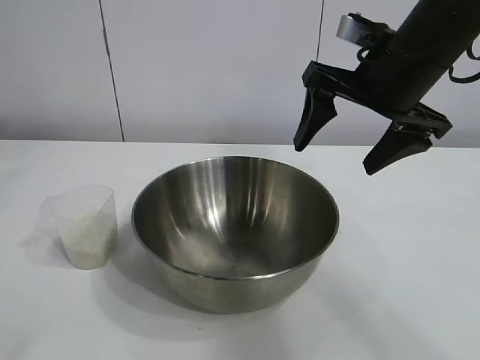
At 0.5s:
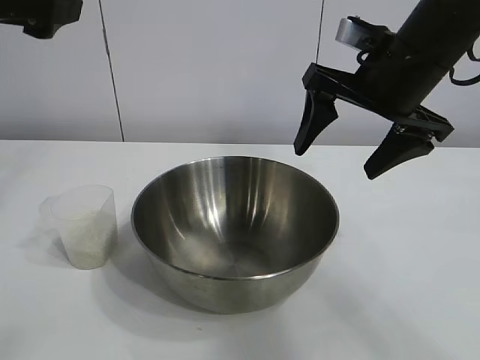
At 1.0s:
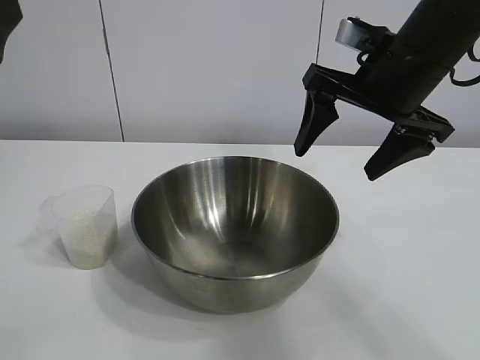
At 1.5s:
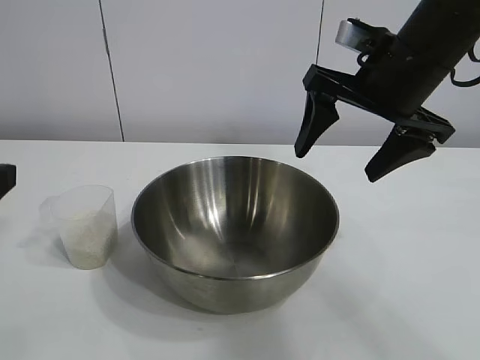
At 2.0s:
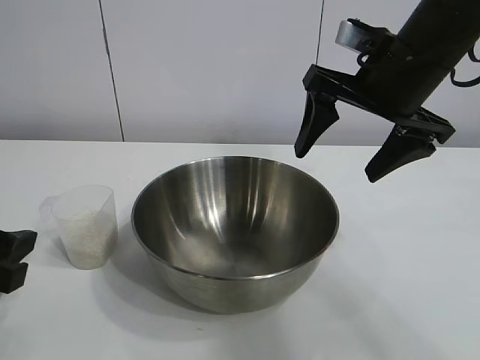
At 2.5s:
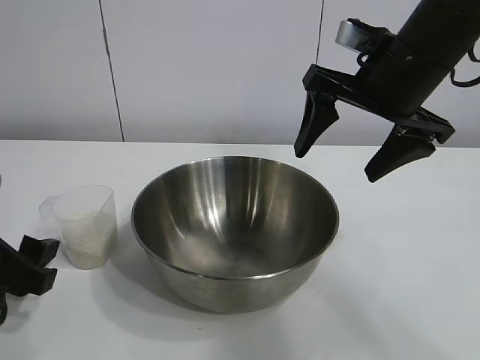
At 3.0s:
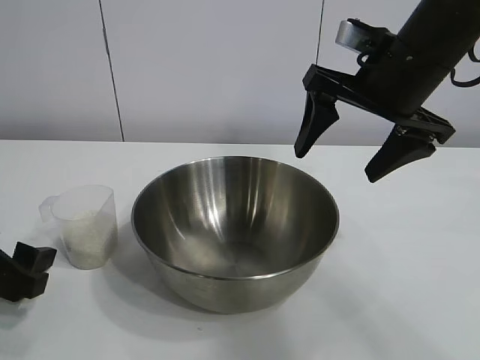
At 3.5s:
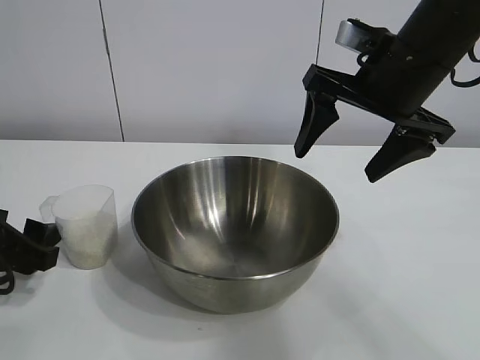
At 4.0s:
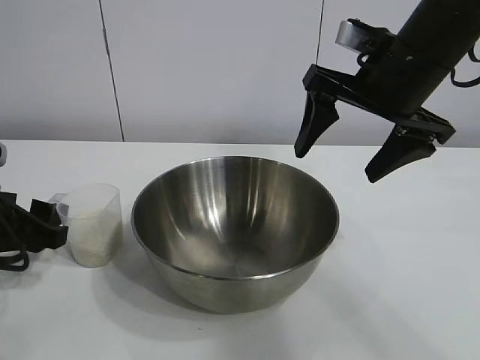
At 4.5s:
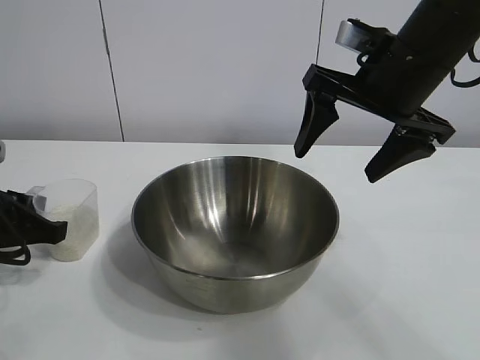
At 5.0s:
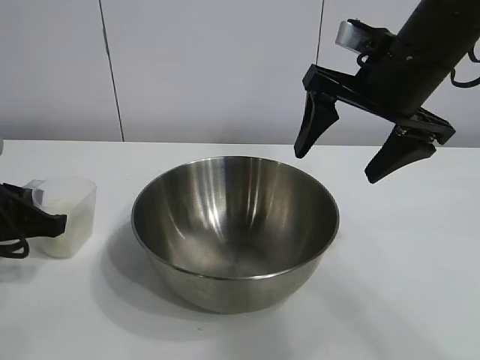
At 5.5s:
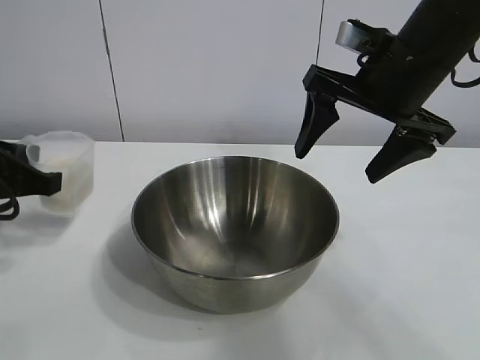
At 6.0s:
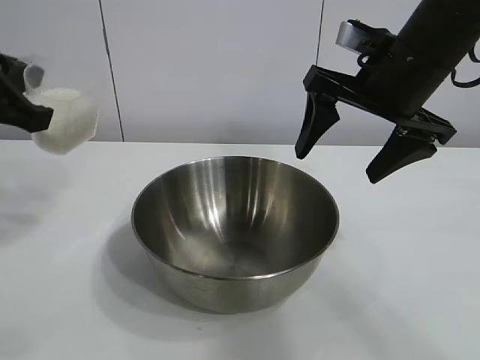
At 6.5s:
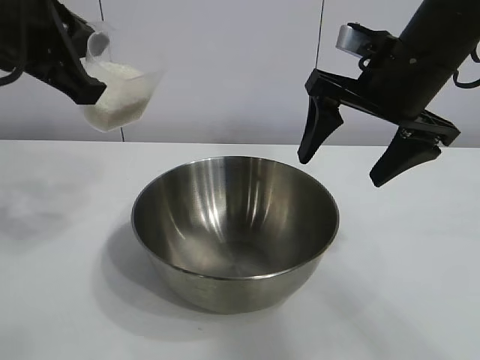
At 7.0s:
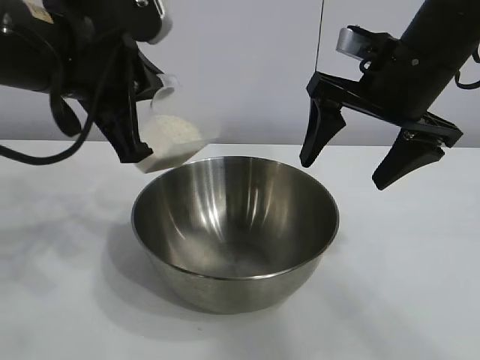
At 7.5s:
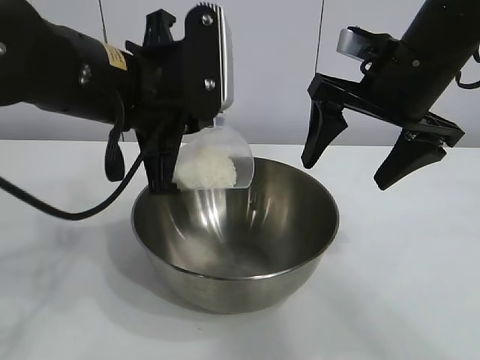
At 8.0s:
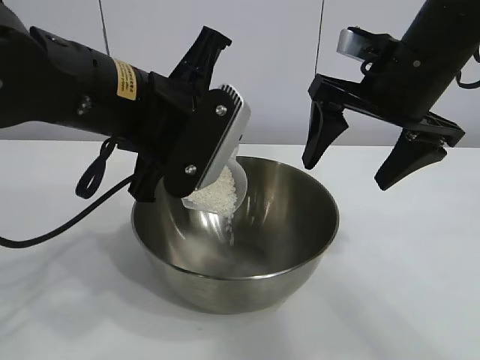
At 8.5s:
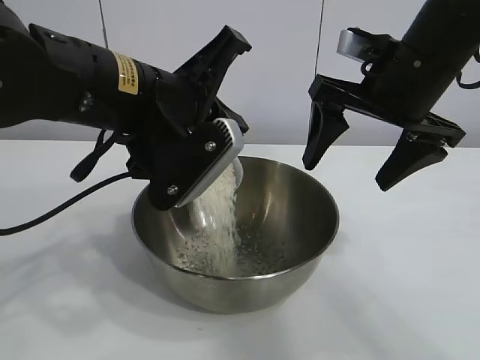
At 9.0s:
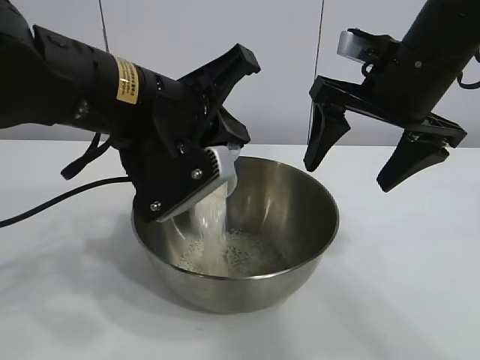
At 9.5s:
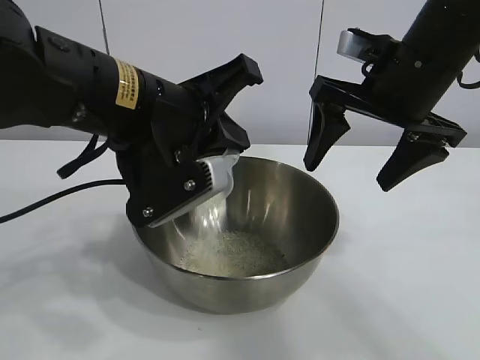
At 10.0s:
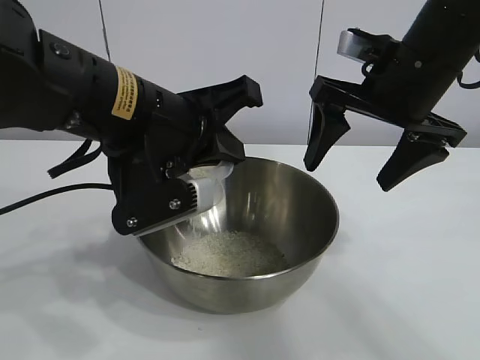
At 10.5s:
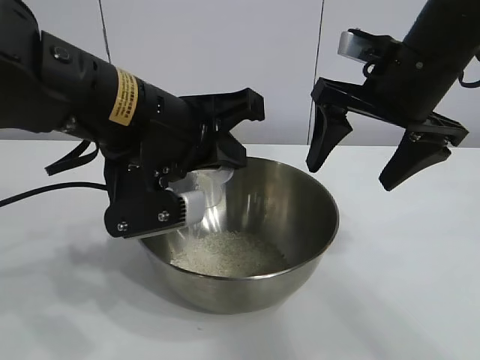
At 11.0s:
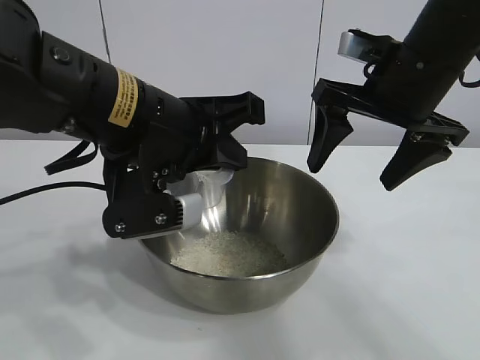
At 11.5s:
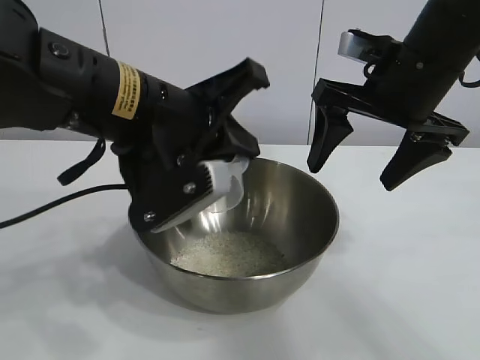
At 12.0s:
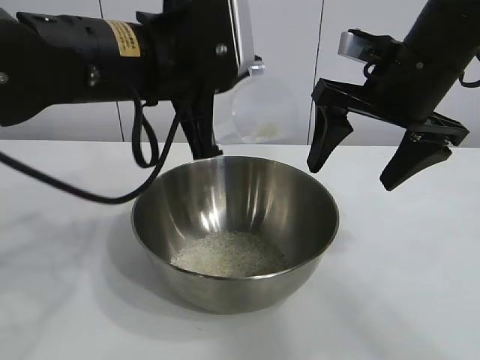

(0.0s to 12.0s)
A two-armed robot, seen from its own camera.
Task of the whole recording: the right gripper grasp the rice container and place it in the center of the table, the left gripper grasp the rice scoop and pour the rice into the rice container.
Step, 0.0s - 4.5s: Grasp the cup with rice in it with left gripper.
Step, 5.0s - 11.0s: Pour the rice from the cup into the bowl with the left gripper.

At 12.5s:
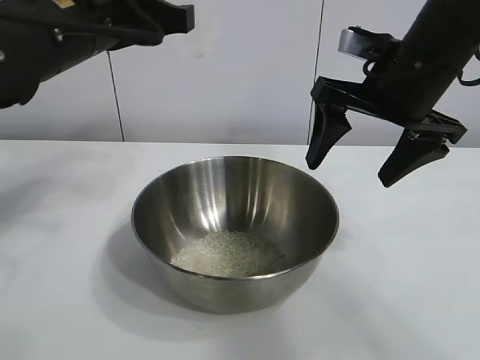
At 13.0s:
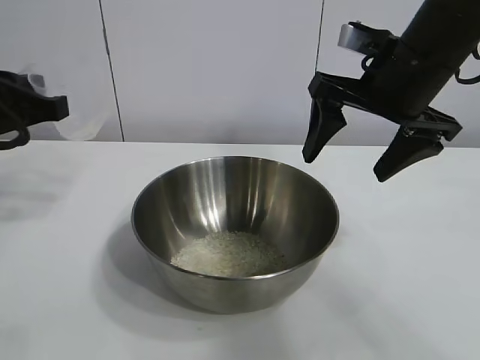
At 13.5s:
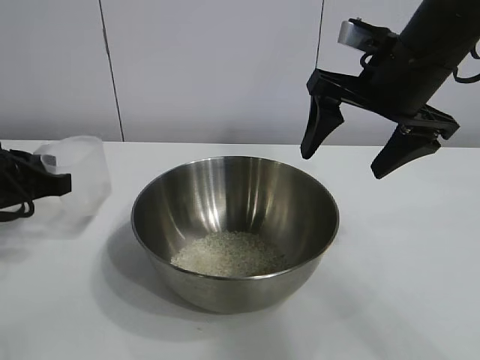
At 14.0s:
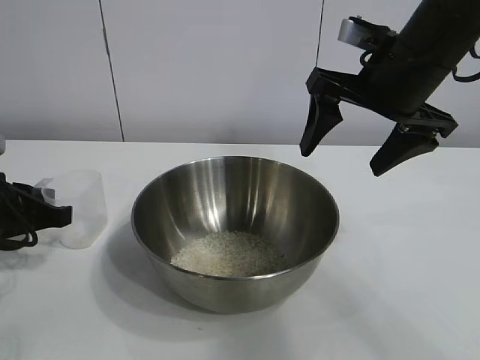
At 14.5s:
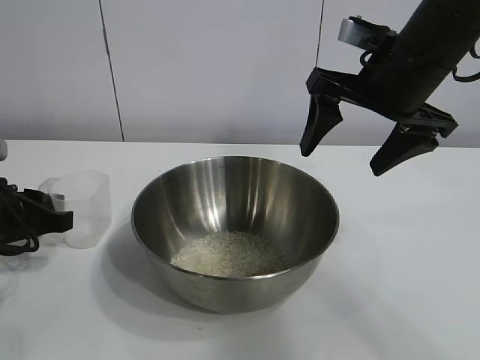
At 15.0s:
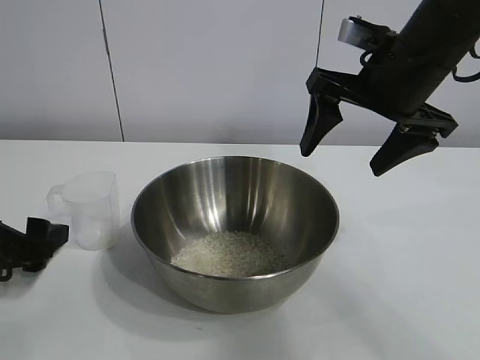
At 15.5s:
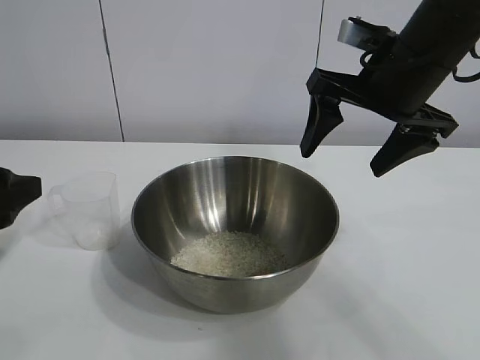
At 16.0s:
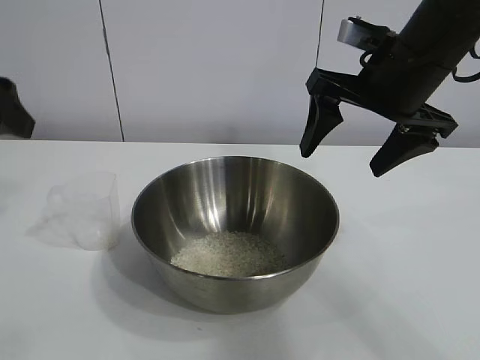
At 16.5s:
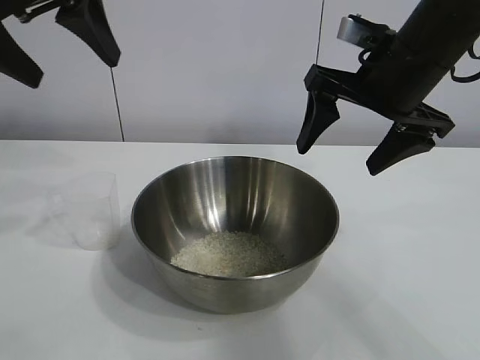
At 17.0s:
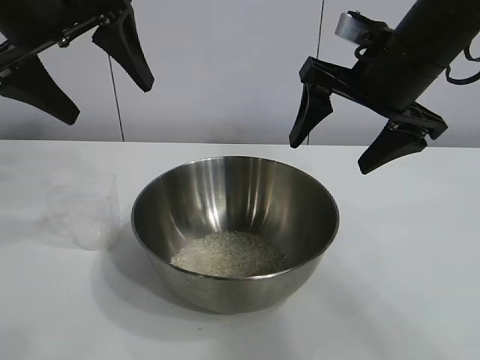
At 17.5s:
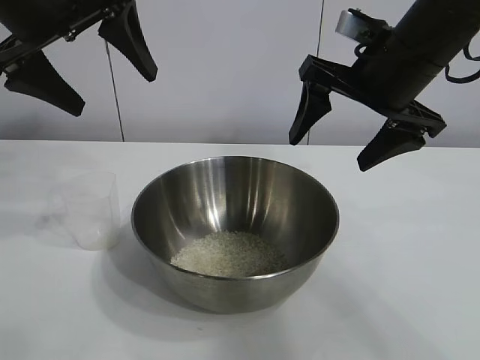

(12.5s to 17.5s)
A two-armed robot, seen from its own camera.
Task of the whole recording: the right gripper grasp the rice container and place it in the center of the table, the left gripper grasp the rice scoop and pour the rice into the rice container.
Step, 12.5s - 14.5s: Place the cup on the table with the left gripper.

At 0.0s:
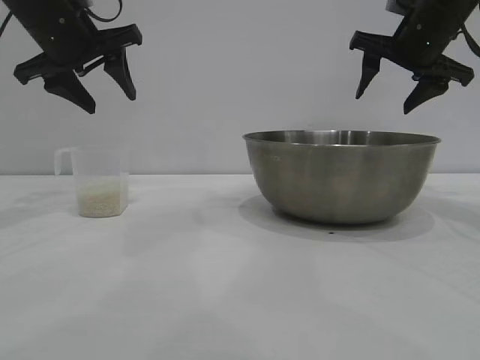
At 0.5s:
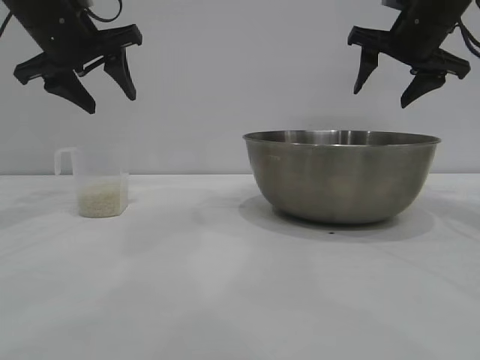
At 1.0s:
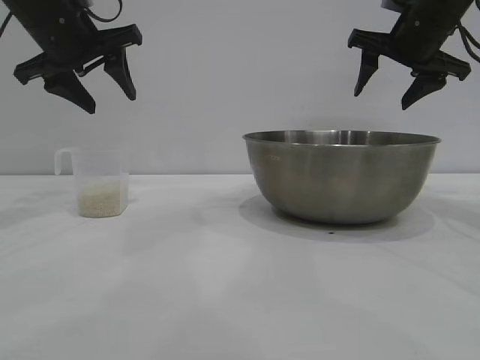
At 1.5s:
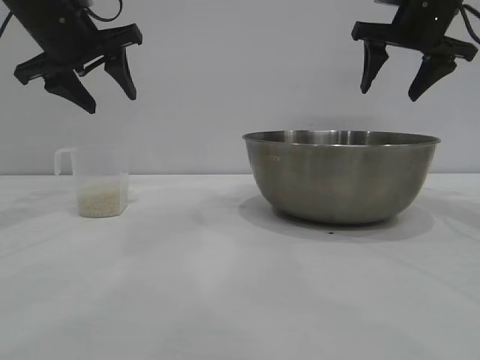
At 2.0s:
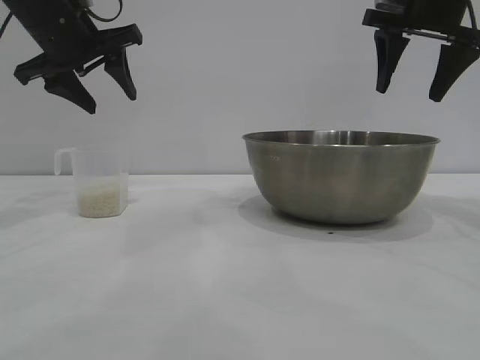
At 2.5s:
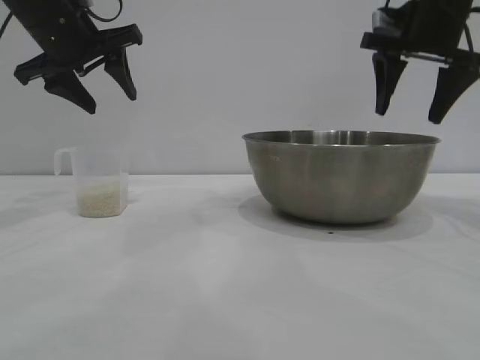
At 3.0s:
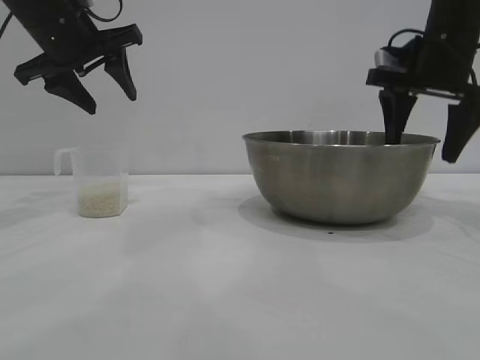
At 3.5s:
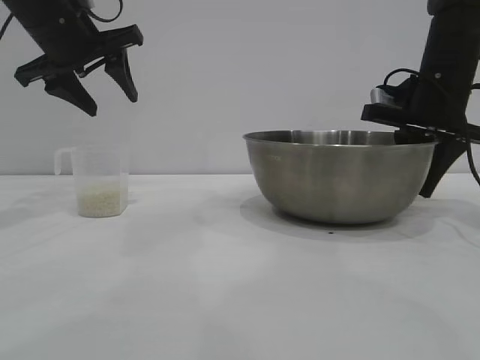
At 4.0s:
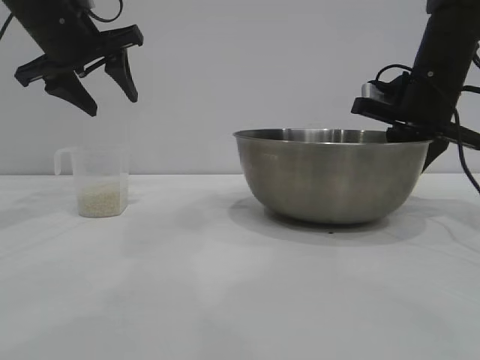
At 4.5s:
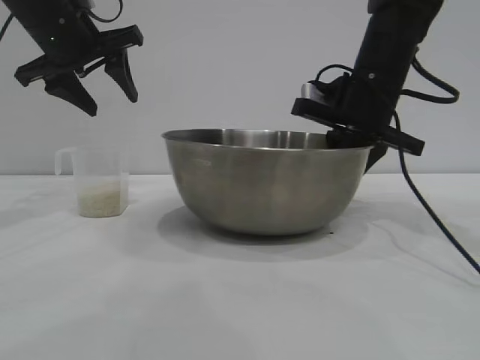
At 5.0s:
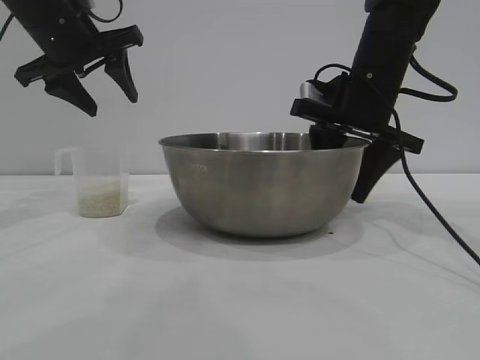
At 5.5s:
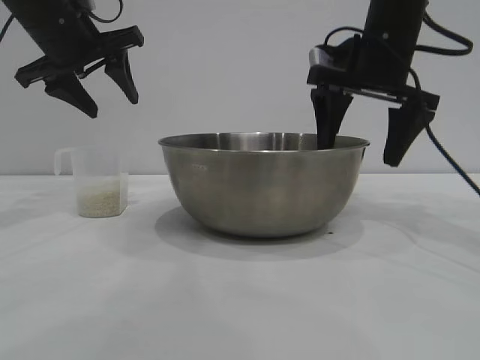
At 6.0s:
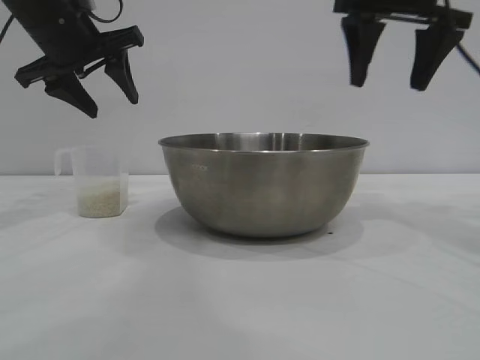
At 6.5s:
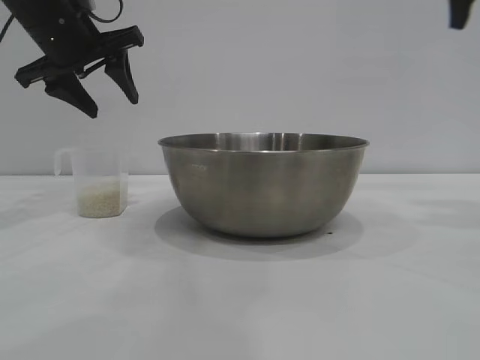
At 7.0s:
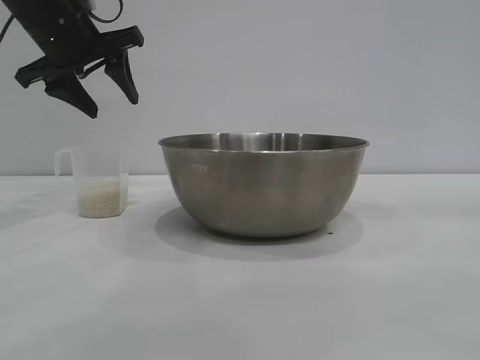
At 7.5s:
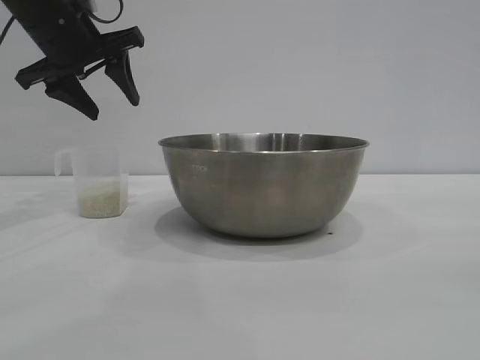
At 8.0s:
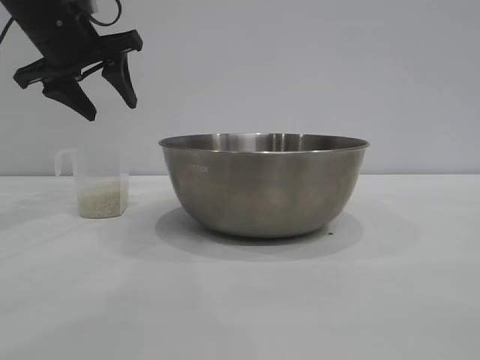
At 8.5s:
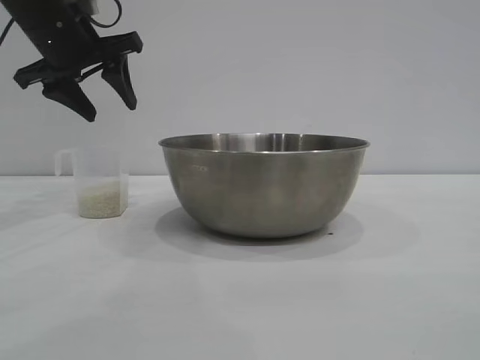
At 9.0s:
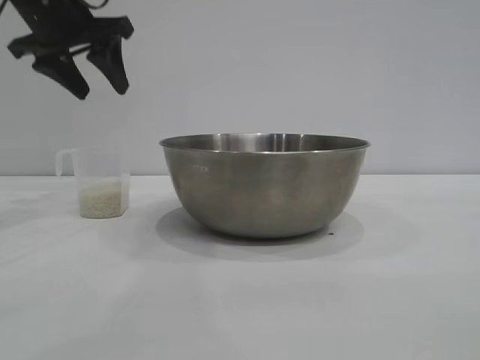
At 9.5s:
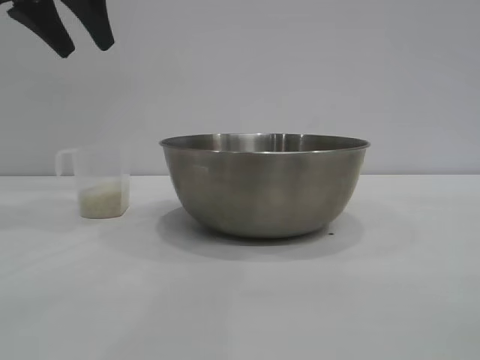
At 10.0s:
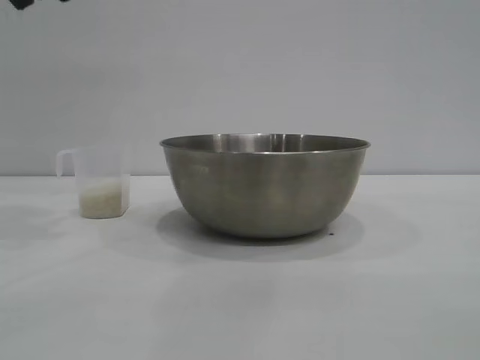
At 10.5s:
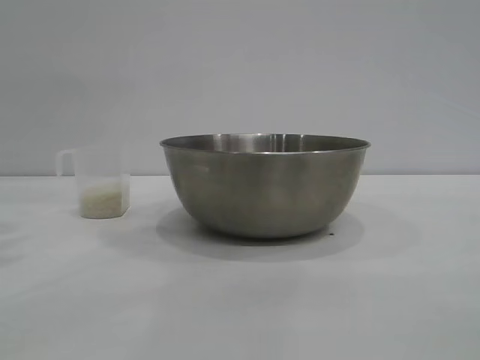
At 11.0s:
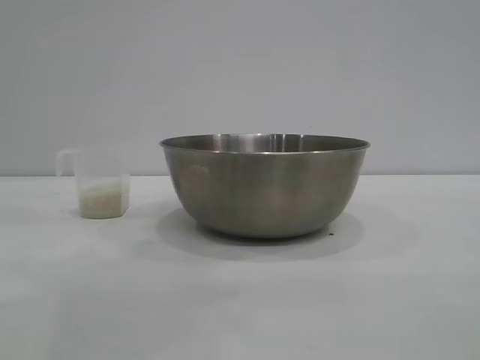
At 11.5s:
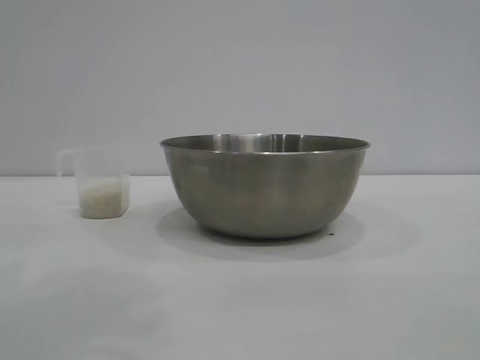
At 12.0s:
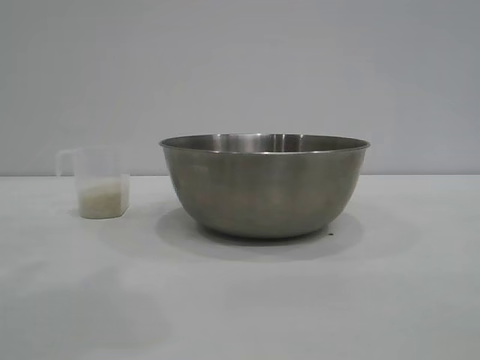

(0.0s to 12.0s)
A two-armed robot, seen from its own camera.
Task of the whole recording: the right gripper grasp the rice container and place it in the center of the table, the left gripper grasp the rice scoop and pour the rice into the rice container.
Step, 0.0s - 5.5s: Move the bowl to the center of view with the right gripper.
